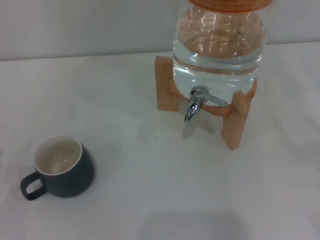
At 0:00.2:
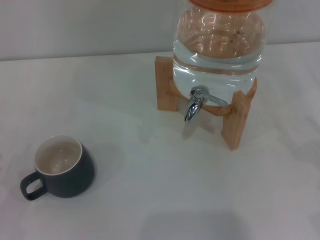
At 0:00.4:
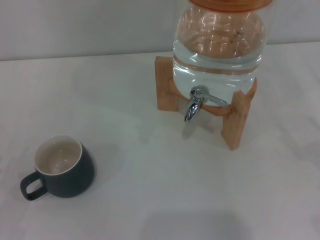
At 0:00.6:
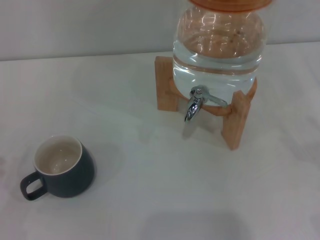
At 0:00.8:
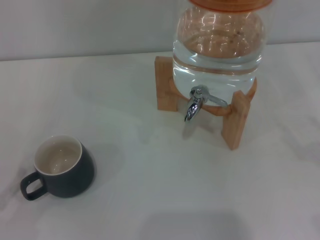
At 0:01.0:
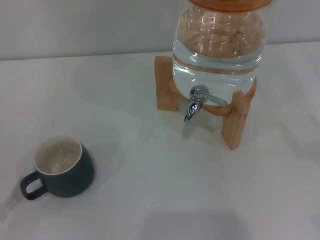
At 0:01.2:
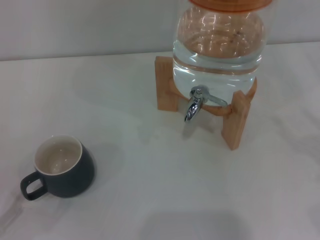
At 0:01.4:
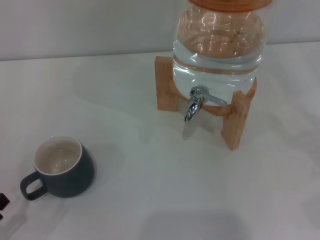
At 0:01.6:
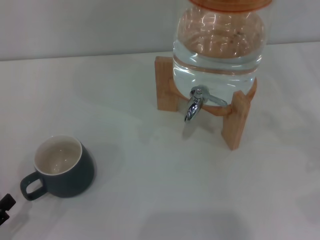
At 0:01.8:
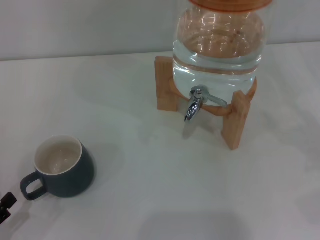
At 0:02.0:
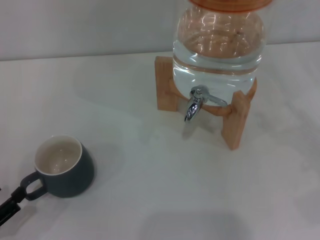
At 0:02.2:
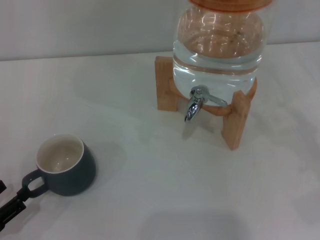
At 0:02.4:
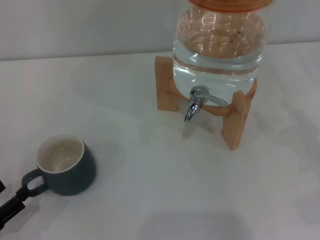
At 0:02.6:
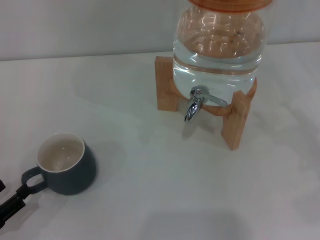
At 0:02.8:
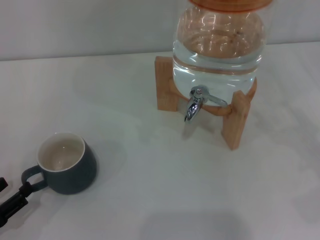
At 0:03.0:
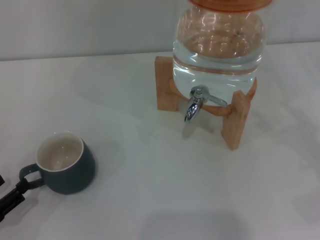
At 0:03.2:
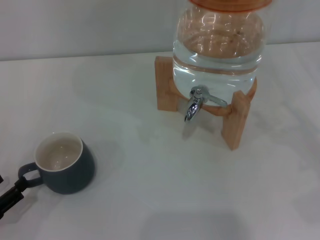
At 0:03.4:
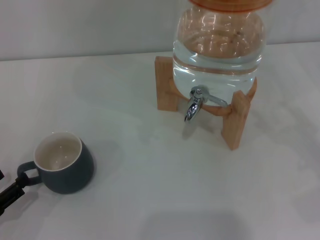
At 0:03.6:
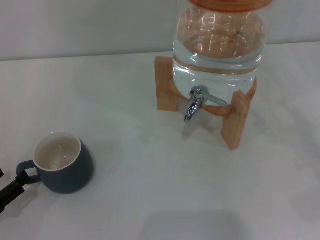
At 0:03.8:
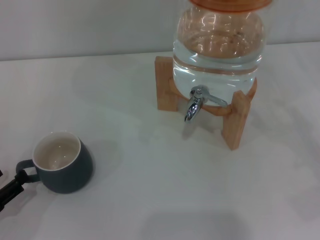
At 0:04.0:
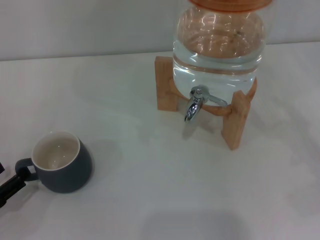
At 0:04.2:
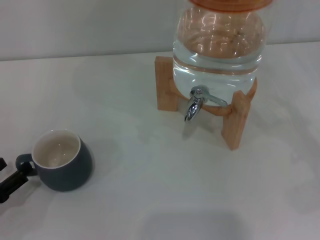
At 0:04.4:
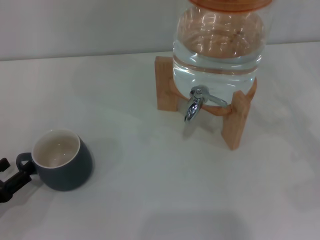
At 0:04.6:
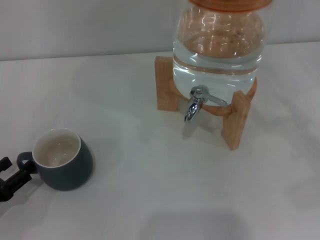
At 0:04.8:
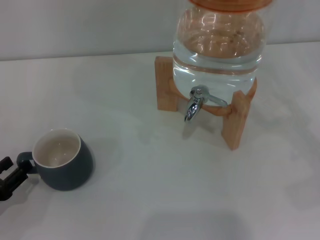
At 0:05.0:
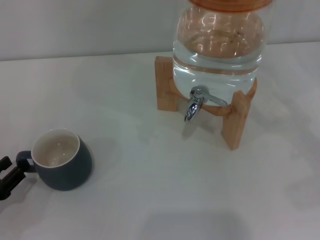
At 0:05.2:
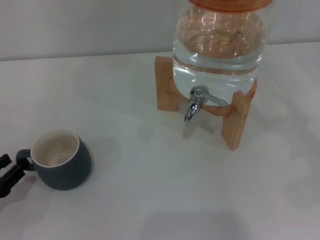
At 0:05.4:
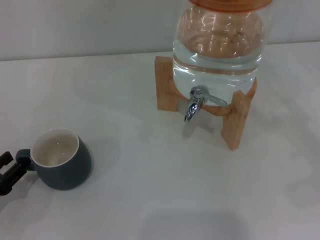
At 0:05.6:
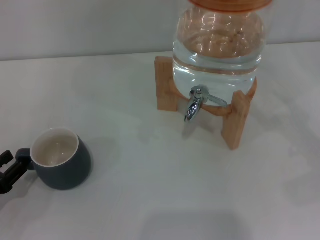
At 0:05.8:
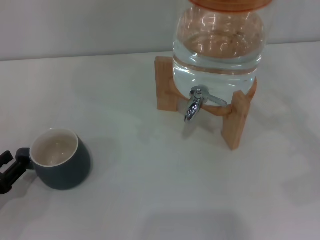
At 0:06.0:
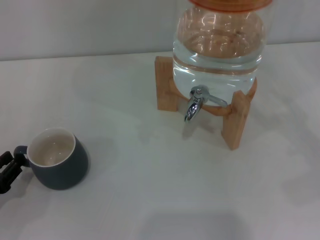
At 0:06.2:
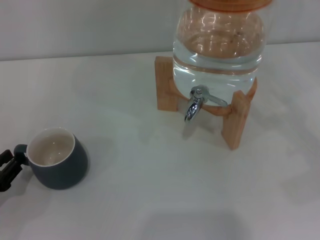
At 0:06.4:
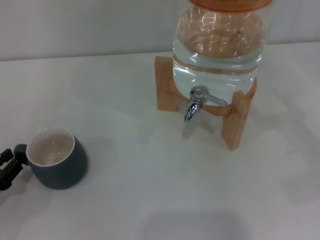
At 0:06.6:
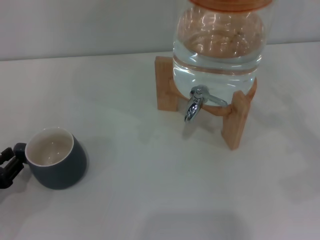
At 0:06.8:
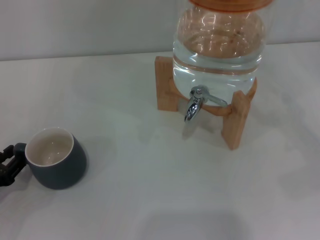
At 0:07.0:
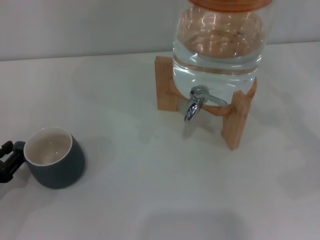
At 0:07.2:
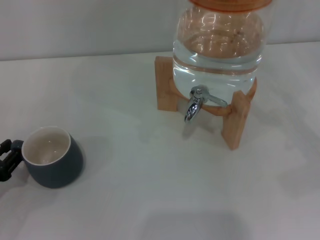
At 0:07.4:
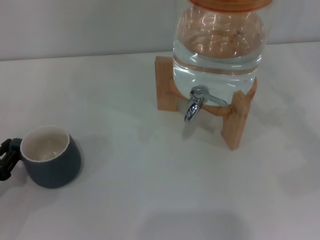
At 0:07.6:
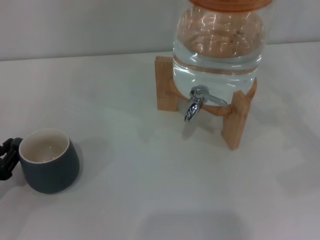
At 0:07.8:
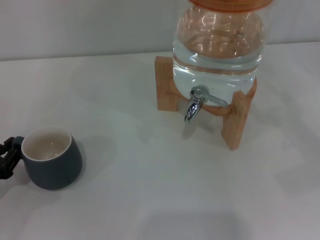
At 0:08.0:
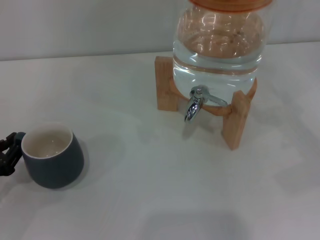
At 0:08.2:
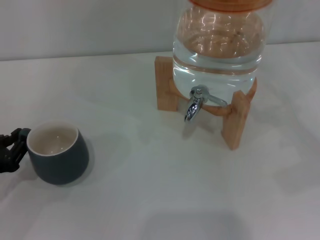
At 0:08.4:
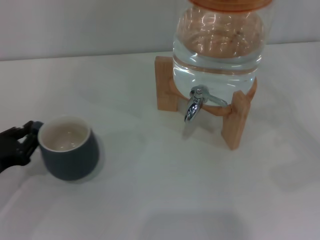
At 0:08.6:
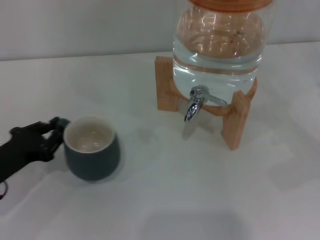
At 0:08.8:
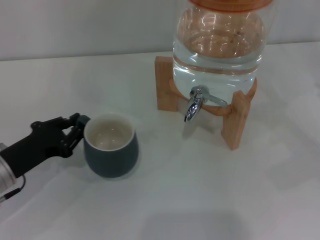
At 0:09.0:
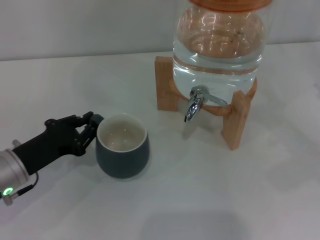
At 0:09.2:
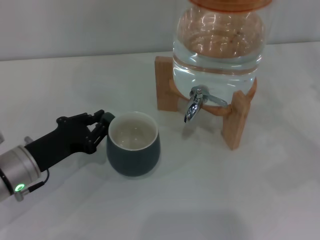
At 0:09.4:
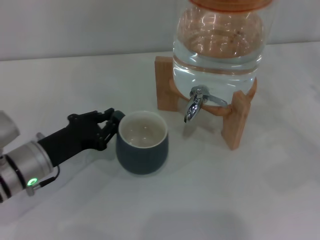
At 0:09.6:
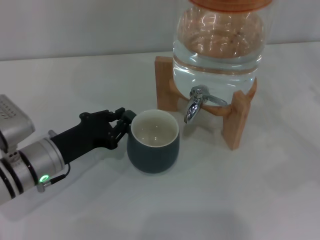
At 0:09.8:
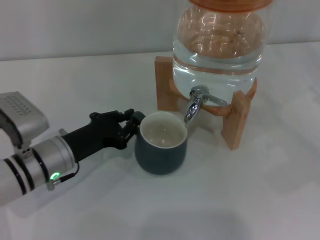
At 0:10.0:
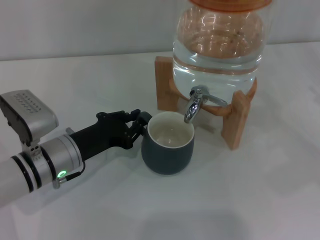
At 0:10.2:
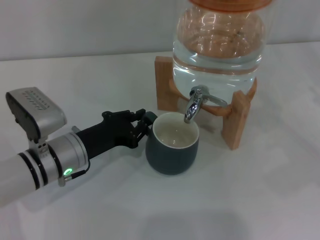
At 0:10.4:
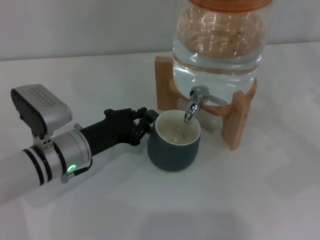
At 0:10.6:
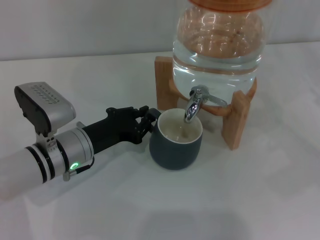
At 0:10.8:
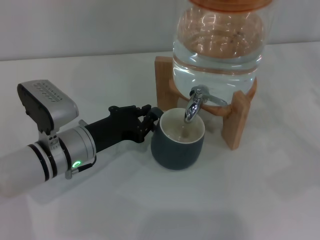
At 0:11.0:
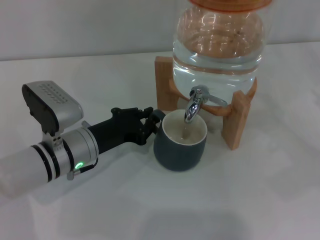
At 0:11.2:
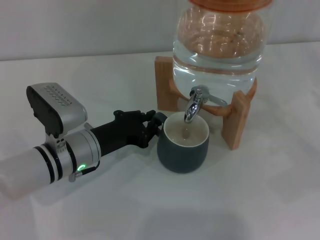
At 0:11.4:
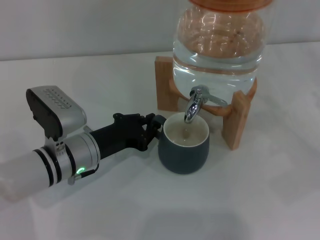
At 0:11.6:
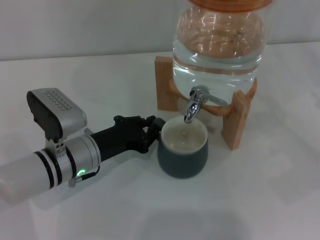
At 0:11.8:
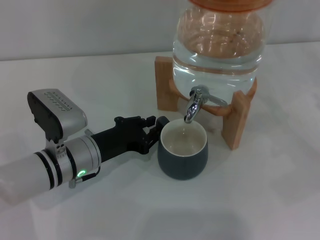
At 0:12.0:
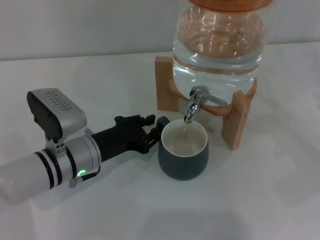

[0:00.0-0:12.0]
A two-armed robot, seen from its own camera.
Task of the whole recording: the left gripper pick up the black cup and place it horizontally under the faucet, the right gripper turn on the faucet to fill the cup, and then turn off the faucet.
0:00.0 to 0:01.6: The left gripper shifts by approximately 5 cm.
0:01.6 to 0:03.0: The grippers move only a little.
0:03.0 to 0:04.4: There are only small adjustments of the grippers.
0:04.4 to 0:06.0: The left gripper closes up.
0:06.0 to 0:07.6: The grippers stay close to where they were, moving slightly.
0:07.6 to 0:09.0: The left gripper goes some 10 cm to the right.
0:09.0 to 0:10.4: The left gripper shifts roughly 10 cm to the right.
0:10.4 to 0:12.0: The grippers stay close to where they were, moving slightly.

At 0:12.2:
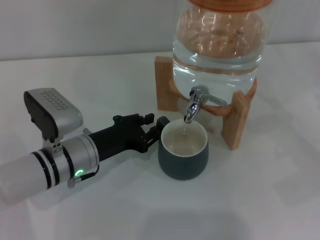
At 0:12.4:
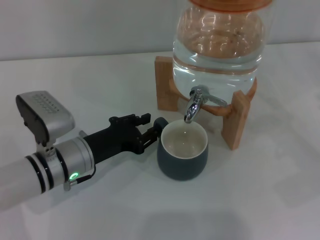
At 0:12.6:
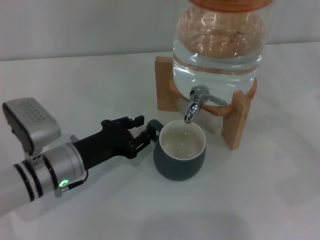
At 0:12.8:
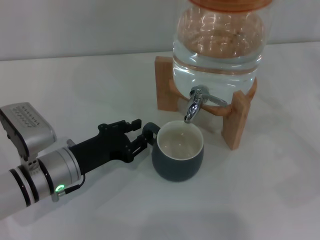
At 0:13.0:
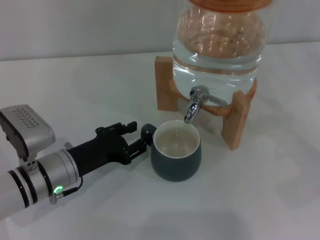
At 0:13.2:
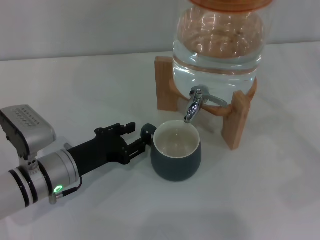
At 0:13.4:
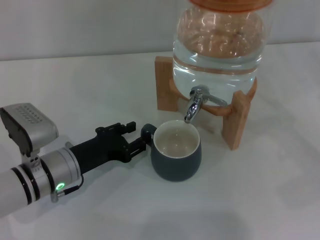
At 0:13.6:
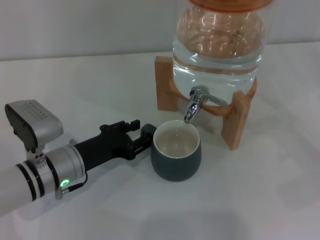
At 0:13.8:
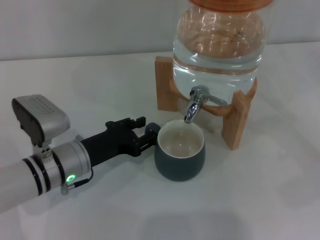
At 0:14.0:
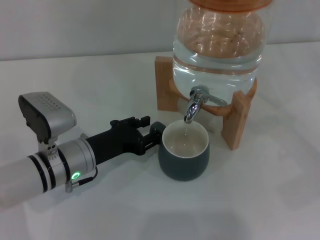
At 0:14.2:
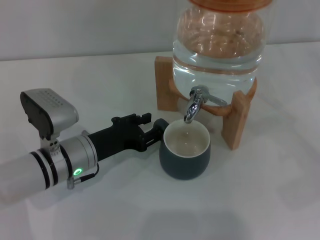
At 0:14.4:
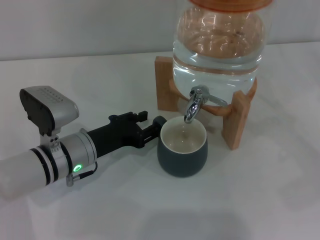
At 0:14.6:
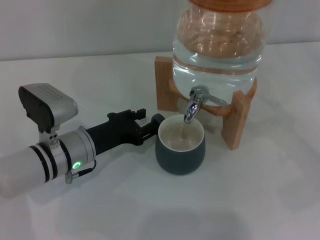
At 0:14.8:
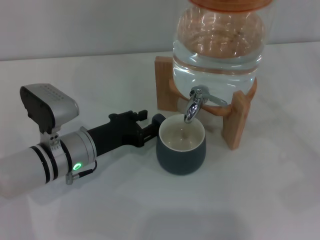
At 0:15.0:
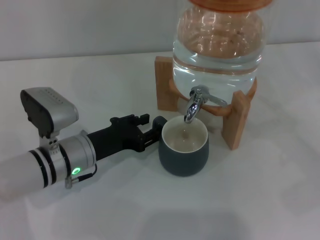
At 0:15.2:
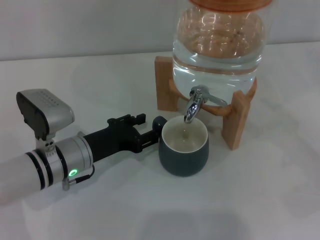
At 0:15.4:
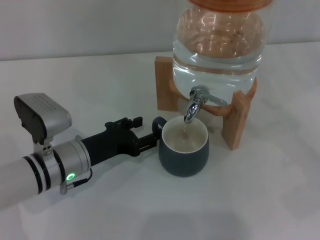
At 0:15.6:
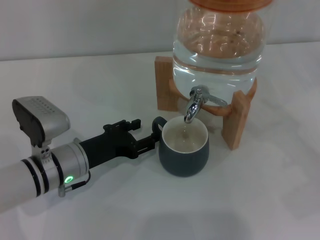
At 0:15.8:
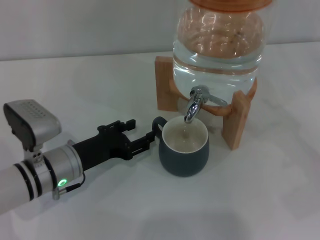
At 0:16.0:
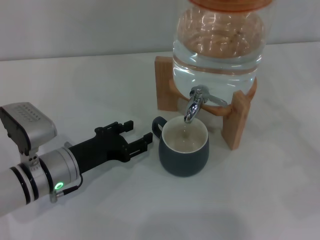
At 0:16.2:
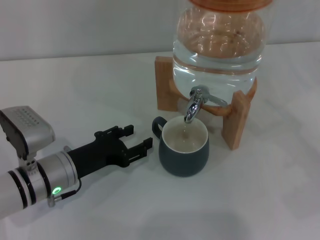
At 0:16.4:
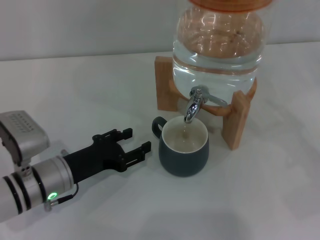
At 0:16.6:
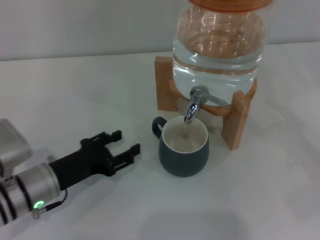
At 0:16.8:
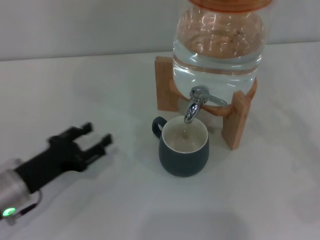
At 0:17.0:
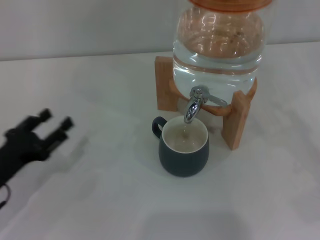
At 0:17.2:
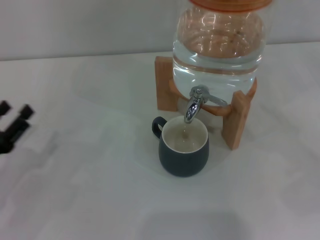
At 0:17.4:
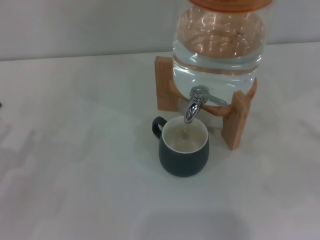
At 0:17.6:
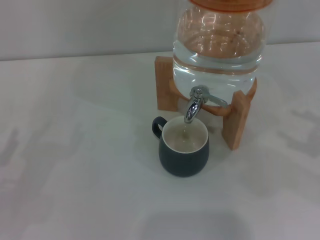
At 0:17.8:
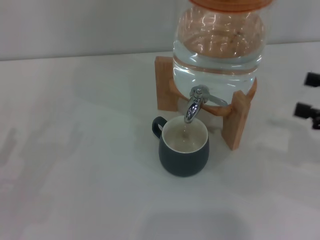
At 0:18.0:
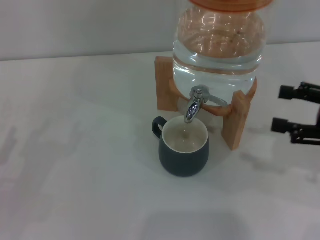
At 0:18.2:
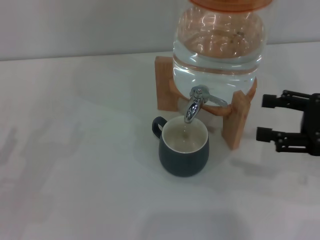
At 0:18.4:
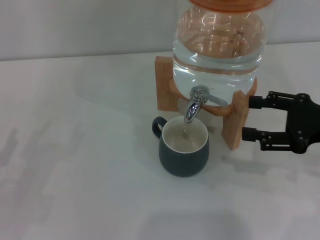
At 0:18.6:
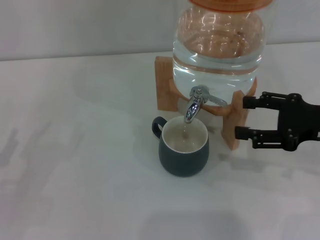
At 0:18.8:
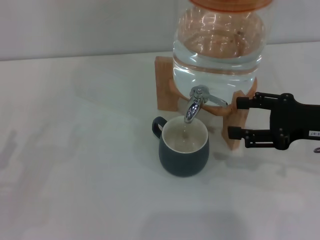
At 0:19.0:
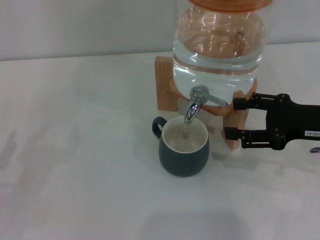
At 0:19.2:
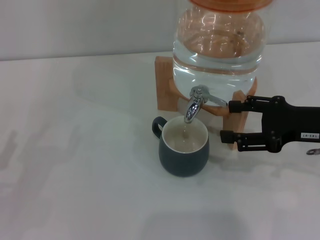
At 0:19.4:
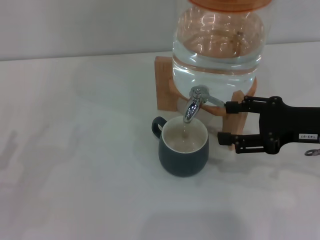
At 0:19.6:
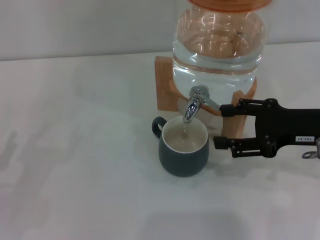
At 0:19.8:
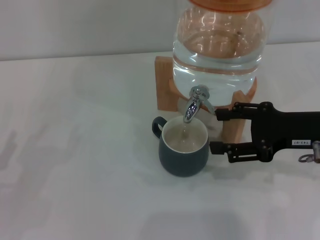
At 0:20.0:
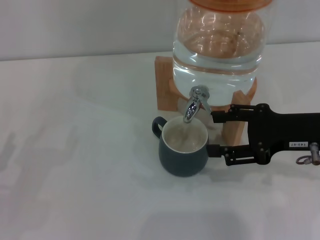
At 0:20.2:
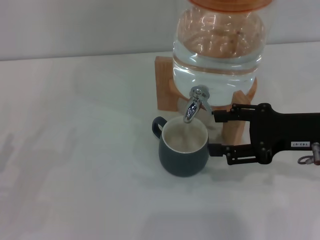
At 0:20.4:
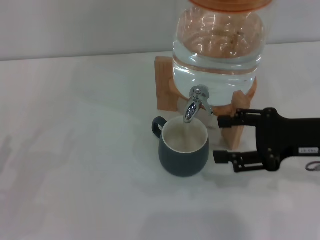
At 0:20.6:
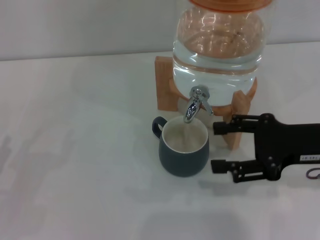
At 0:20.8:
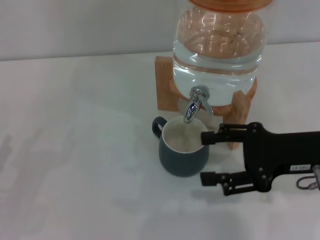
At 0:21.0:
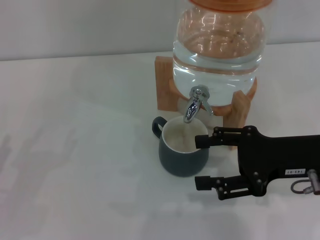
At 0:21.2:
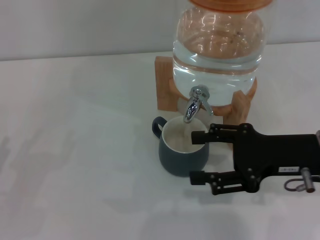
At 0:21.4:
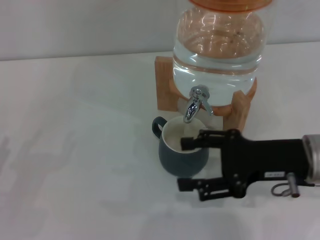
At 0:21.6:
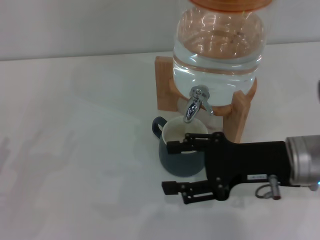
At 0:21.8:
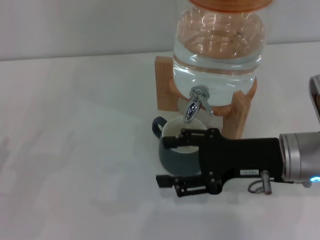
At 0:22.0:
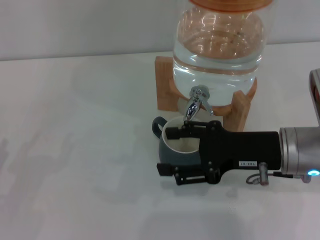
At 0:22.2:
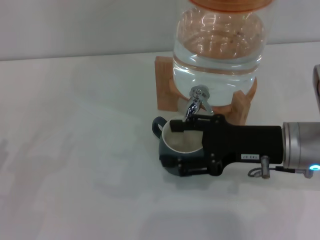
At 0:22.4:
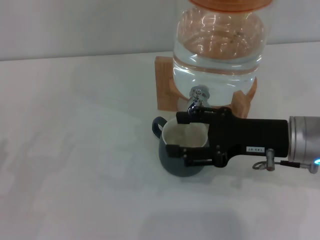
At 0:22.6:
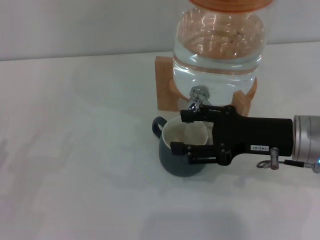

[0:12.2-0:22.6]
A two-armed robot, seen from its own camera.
Task of the whole recording: the left gripper pick up the black cup and place it horizontally under the faucet, the right gripper turn on the faucet to fill the cup, and then turn off the faucet.
Step, 0:12.2 to 0:15.6: Move the cup beneath the water dispenser nozzle with the left gripper.
Step, 0:15.8 to 0:20.6: Open the dispenser valve and fill the cup with water with the right gripper.
0:12.2 to 0:15.2: There are only small adjustments of the grippers.
0:15.2 to 0:16.6: The left gripper changes place by some 5 cm.
0:16.6 to 0:18.2: Both grippers travel together to the left, some 10 cm.
0:18.2 to 0:19.6: The right gripper travels to the left by approximately 5 cm.
0:19.6 to 0:21.2: There are only small adjustments of the grippers.
0:21.2 to 0:22.6: There are only small adjustments of the grippers.
